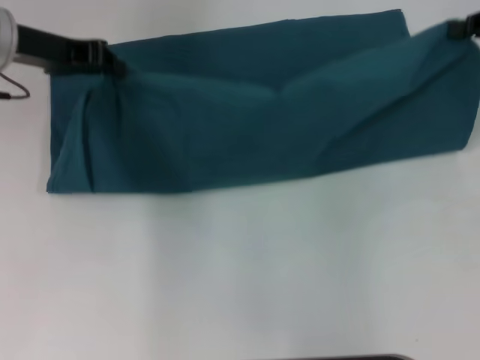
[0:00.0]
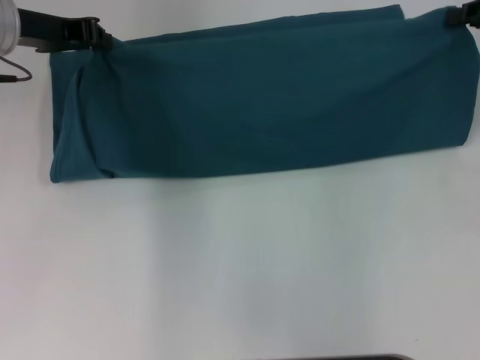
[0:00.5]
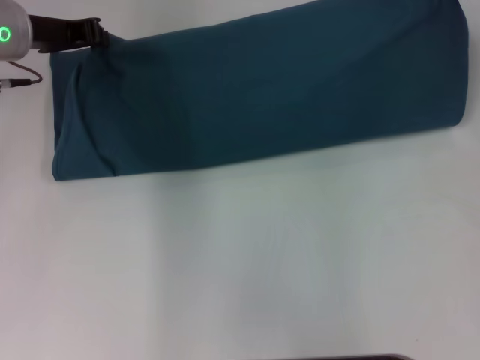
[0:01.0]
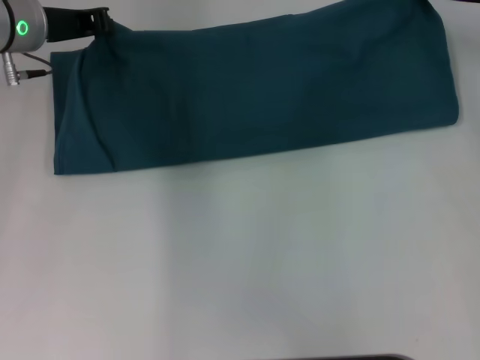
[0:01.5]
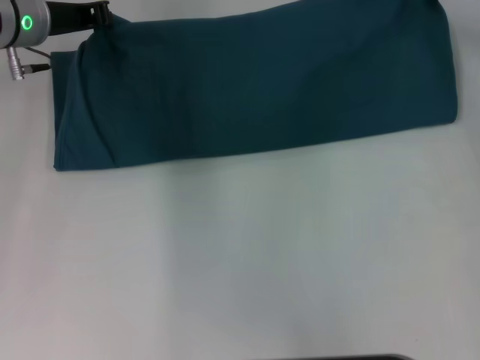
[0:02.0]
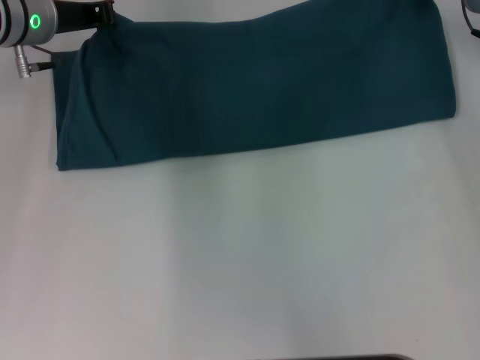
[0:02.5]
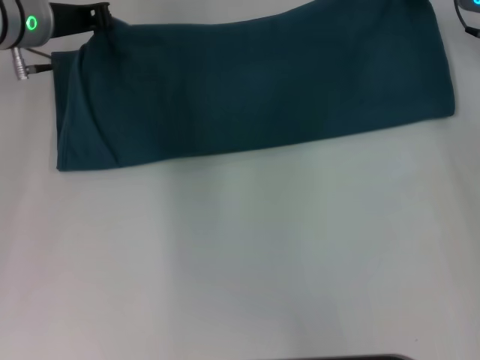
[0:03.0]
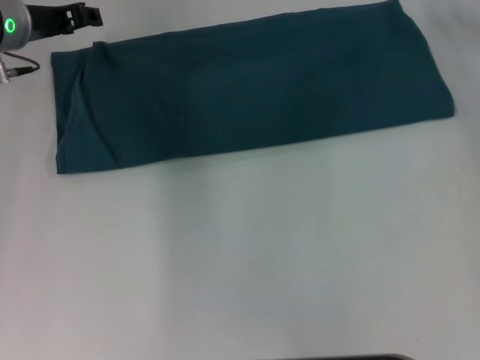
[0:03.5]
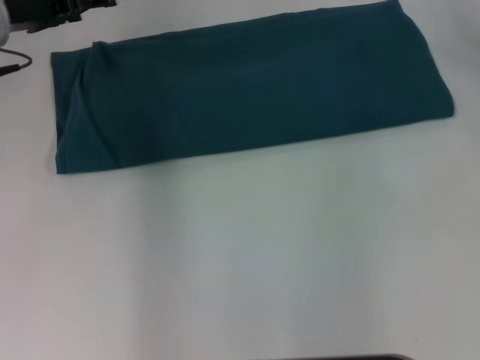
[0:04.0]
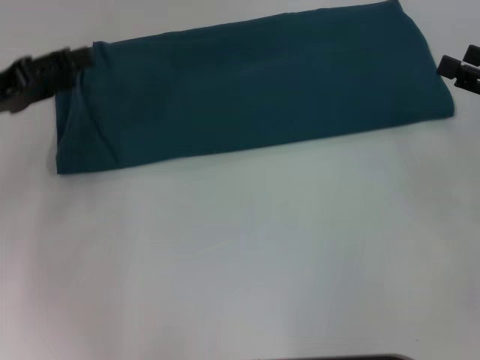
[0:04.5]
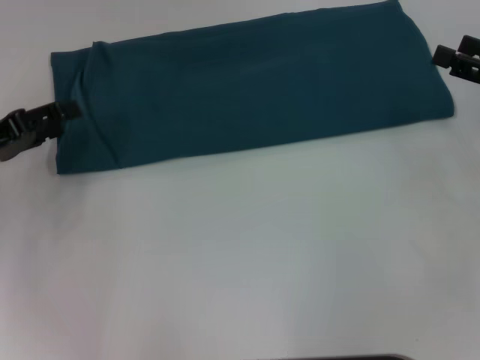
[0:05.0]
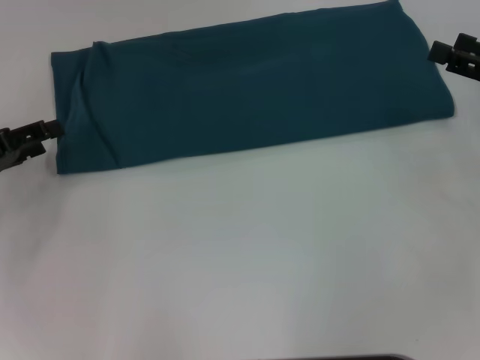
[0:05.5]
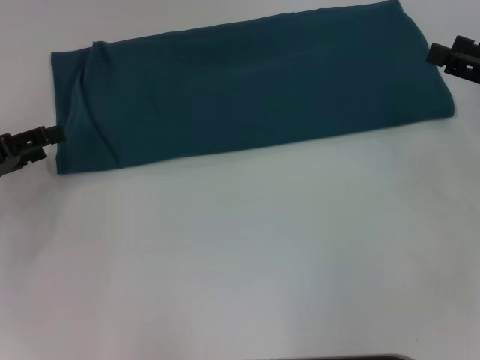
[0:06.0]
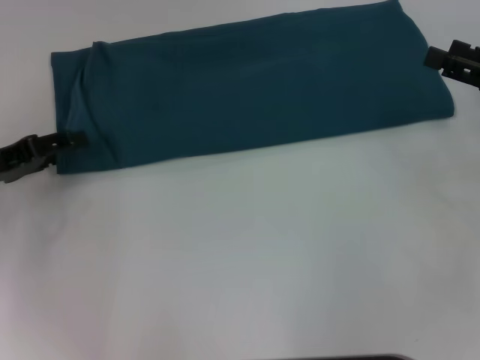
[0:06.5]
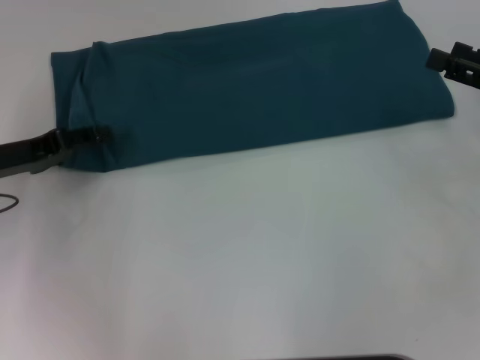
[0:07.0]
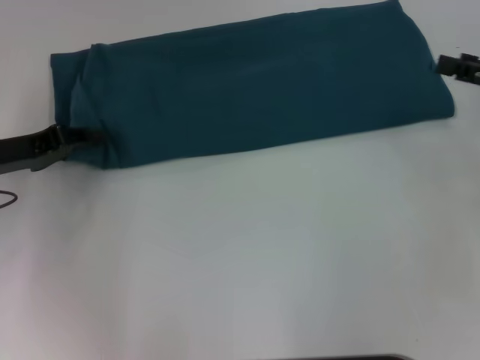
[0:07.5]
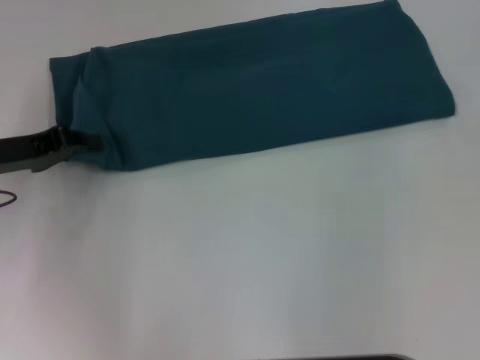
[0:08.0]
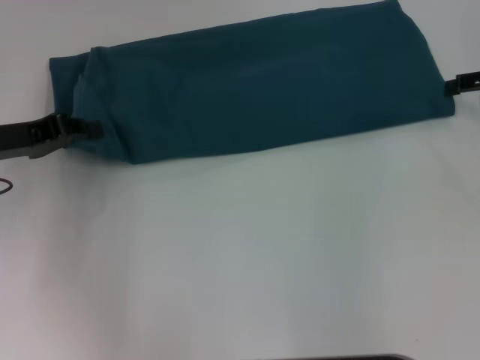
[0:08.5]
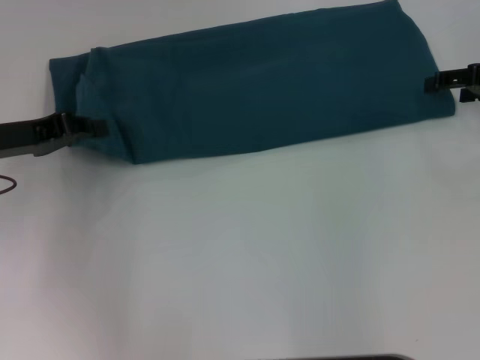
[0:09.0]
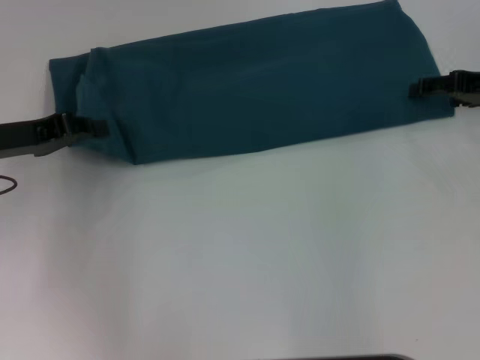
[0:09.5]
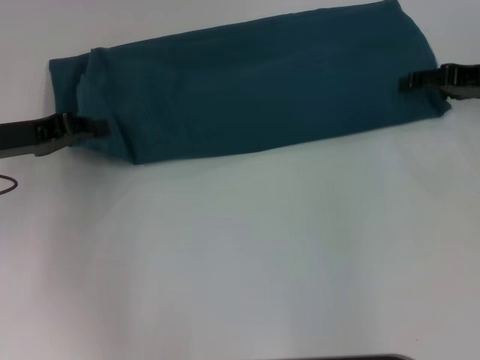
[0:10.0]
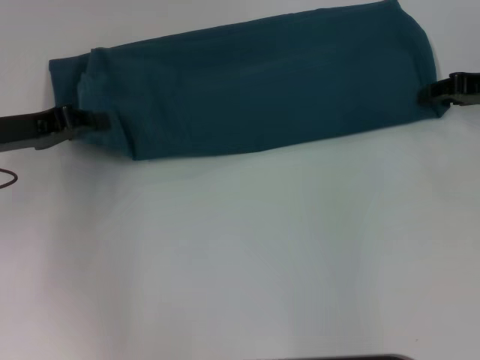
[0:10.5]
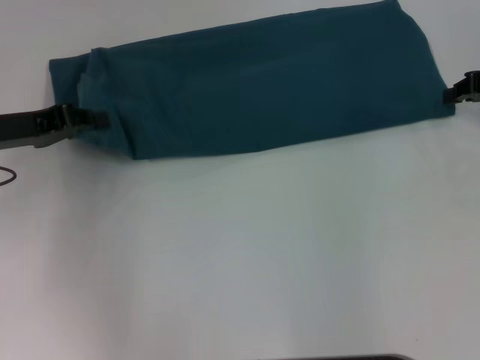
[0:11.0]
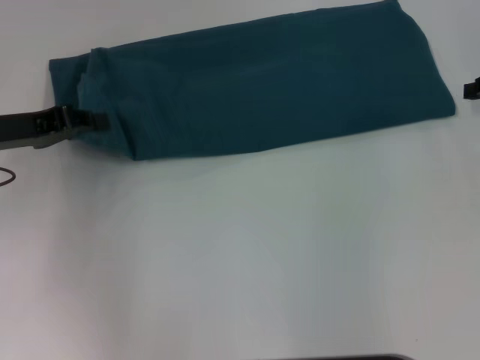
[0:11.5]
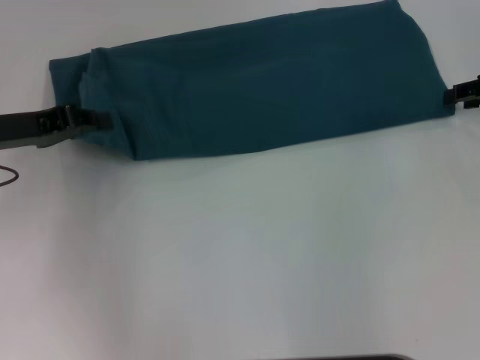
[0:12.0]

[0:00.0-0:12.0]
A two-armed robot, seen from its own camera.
Step, 0:00.0 to 0:03.0: Fold the clothes to the left.
Step, 0:00.0 to 0:03.0: Fold the clothes to the right.
0:00.0 to 0:02.0: The left gripper moves approximately 5 cm; the right gripper moves forward and to the left, some 10 cm.
0:02.0 to 0:04.0: The right gripper ends up roughly 5 cm from where it was, and opens up, while the left gripper opens.
0:04.0 to 0:06.0: The right gripper travels backward and downward by approximately 10 cm. Meanwhile the left gripper moves backward, to the left and downward, some 20 cm.
0:06.0 to 0:08.0: The right gripper travels upward, forward and to the right by about 10 cm; the left gripper moves approximately 5 cm, and closes.
0:08.0 to 0:10.0: The right gripper travels to the left and downward by roughly 10 cm.
0:10.0 to 0:12.0: The right gripper closes.

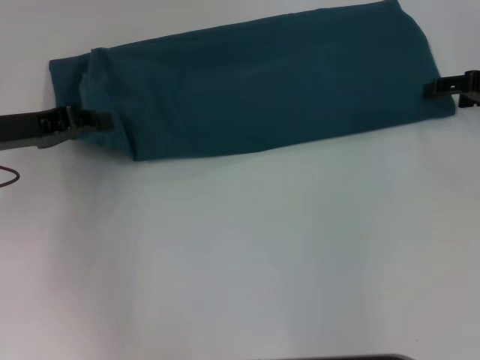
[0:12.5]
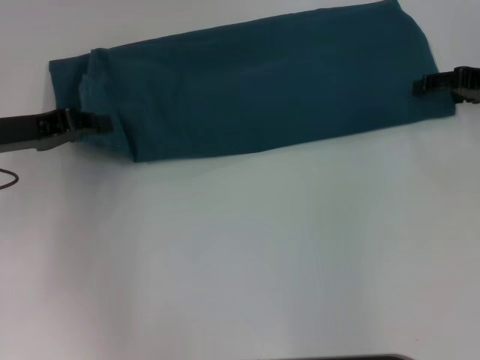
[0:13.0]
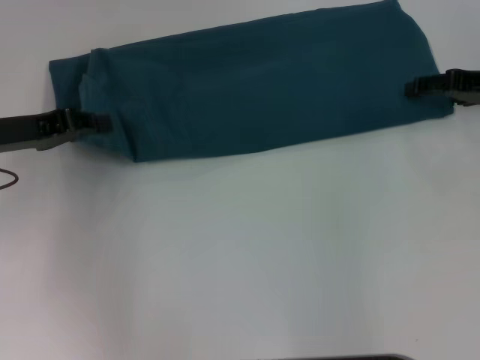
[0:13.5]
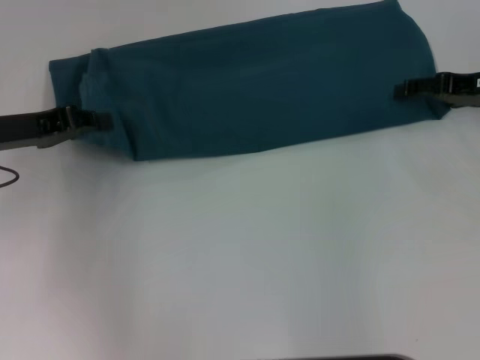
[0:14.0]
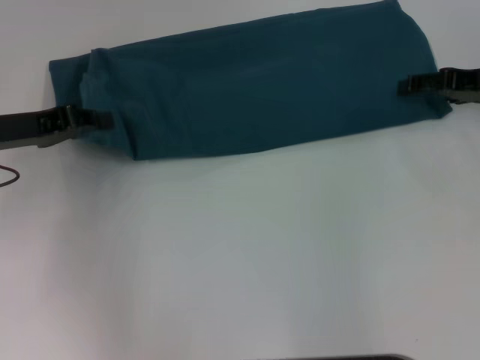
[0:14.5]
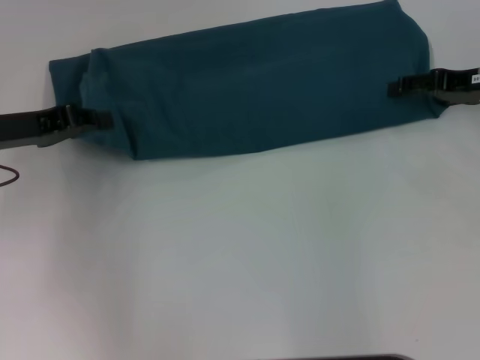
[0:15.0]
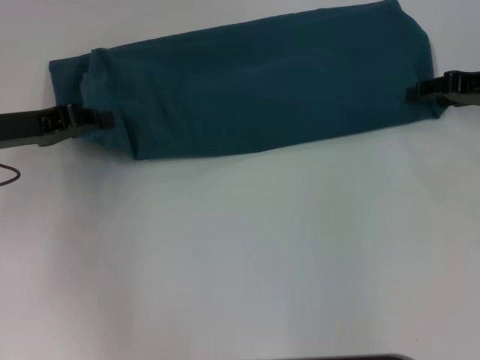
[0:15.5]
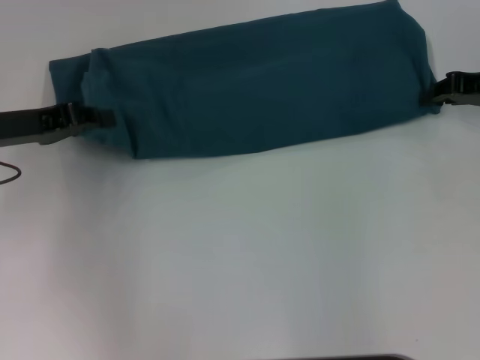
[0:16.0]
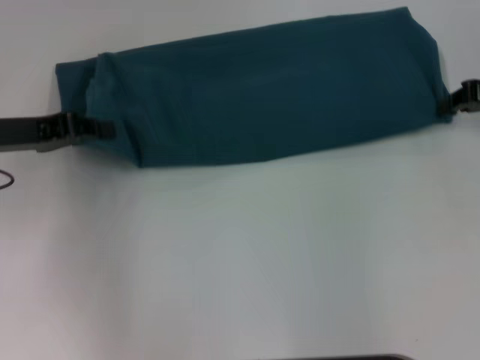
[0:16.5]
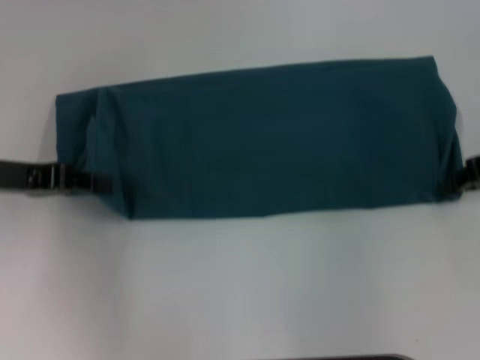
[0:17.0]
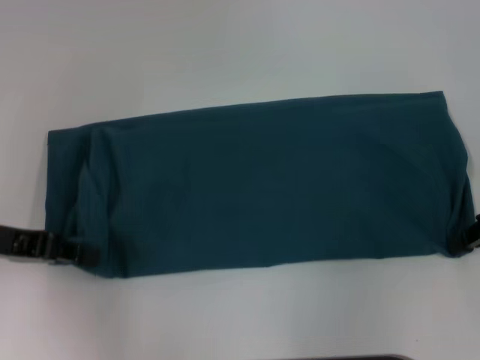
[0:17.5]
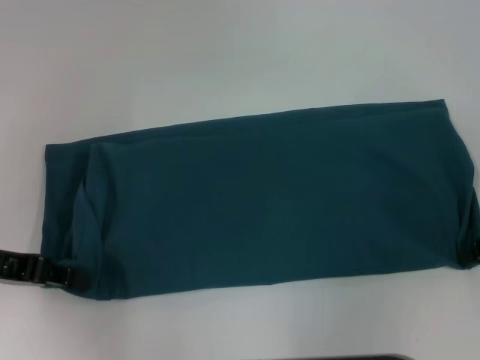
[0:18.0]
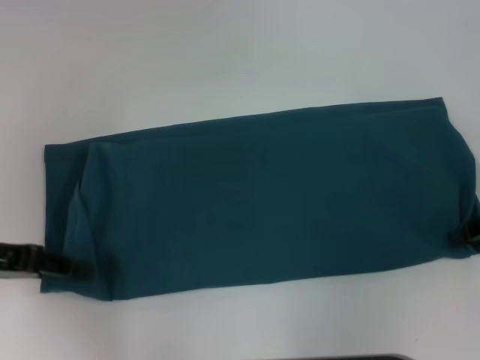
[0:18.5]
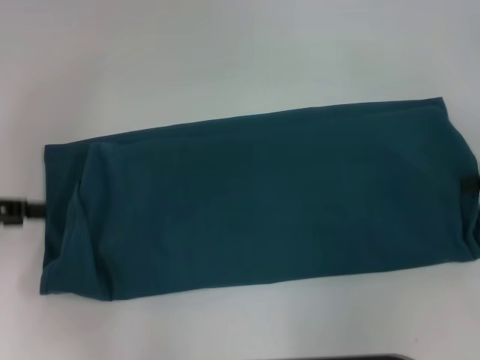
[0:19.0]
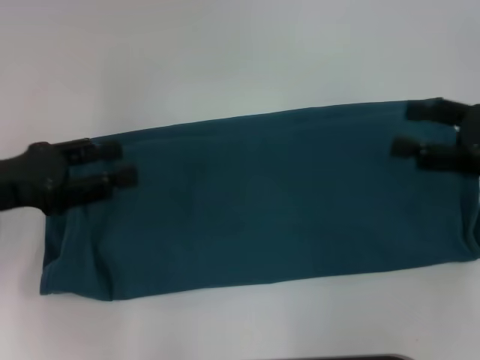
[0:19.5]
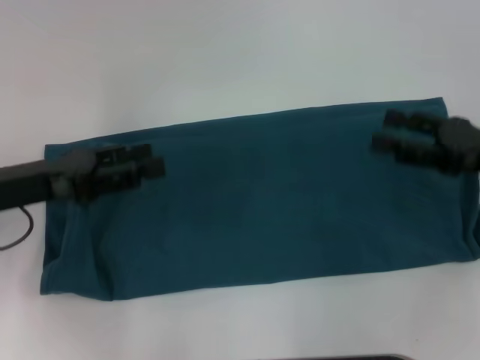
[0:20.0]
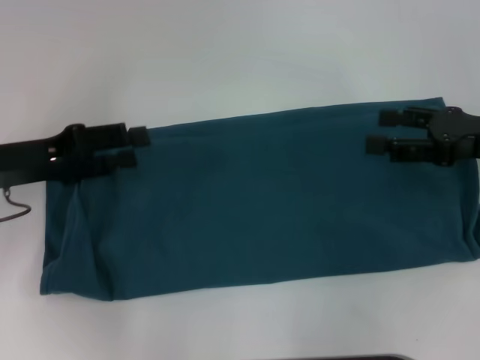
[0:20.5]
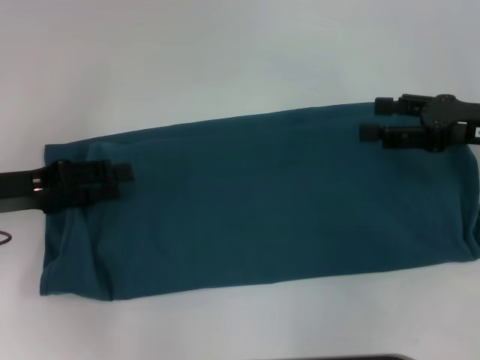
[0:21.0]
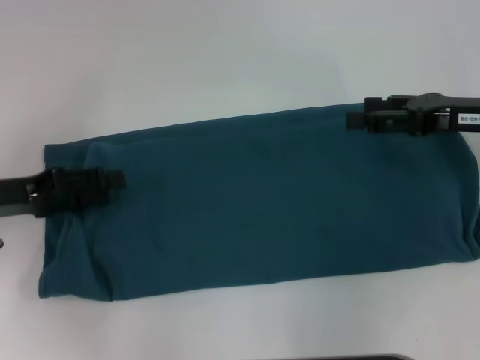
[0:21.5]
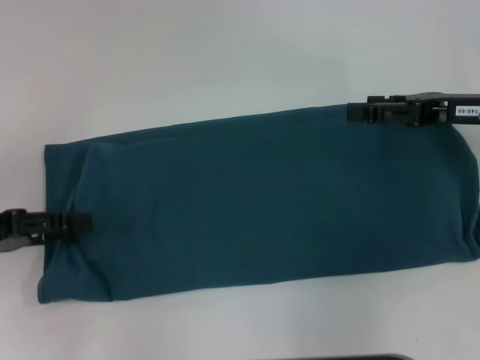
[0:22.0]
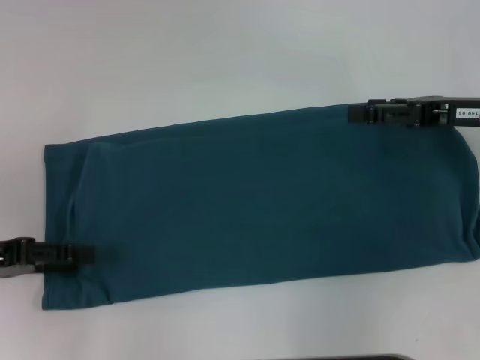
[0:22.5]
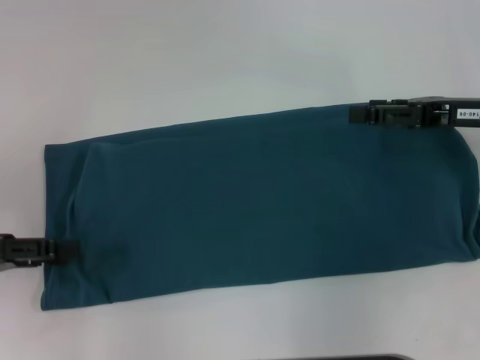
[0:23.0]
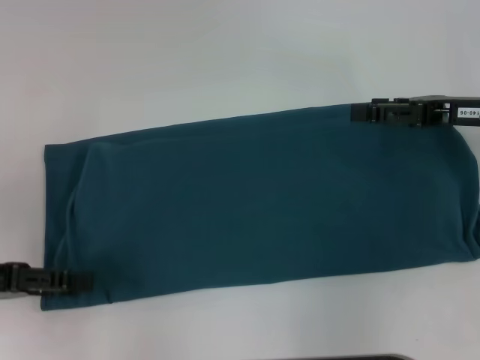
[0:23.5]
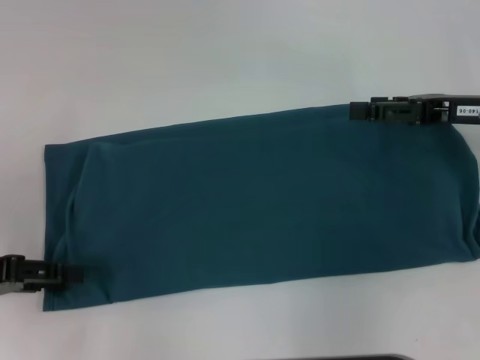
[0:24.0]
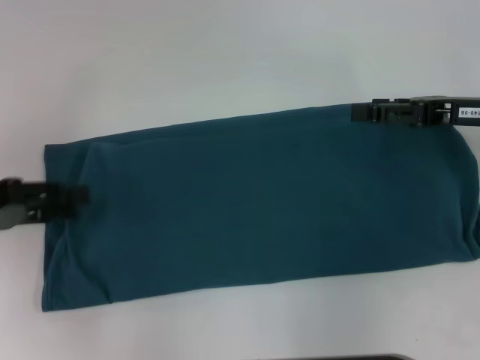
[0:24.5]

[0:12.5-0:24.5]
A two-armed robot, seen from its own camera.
Step, 0:12.5 to 0:18.5: Pull the clothes with your left hand.
Step, 0:12.5 to 0:18.5: Pull the clothes with your right hand.
0:14.5 to 0:16.5: The right gripper closes up.
0:16.5 to 0:18.5: Both grippers move backward, approximately 10 cm.
0:18.5 to 0:20.5: The right gripper moves about 5 cm, and opens its fingers, while the left gripper ends up some 5 cm from where it was, and opens up.
0:20.5 to 0:22.5: The left gripper is displaced to the left and backward by approximately 10 cm.
0:22.5 to 0:24.5: The grippers stay close to where they were, moving slightly.

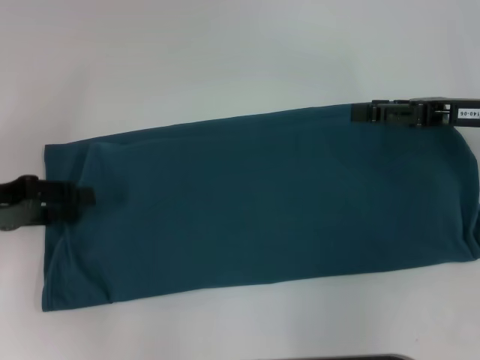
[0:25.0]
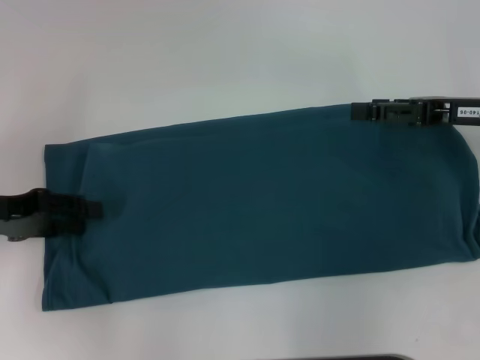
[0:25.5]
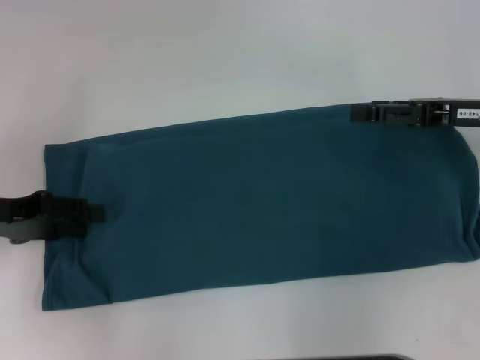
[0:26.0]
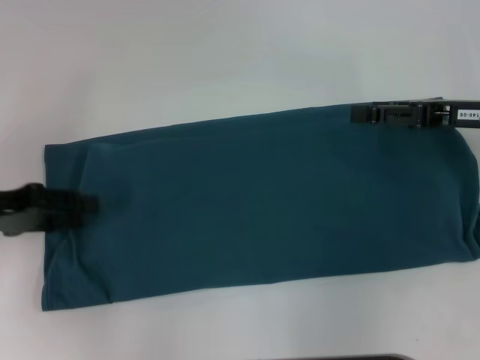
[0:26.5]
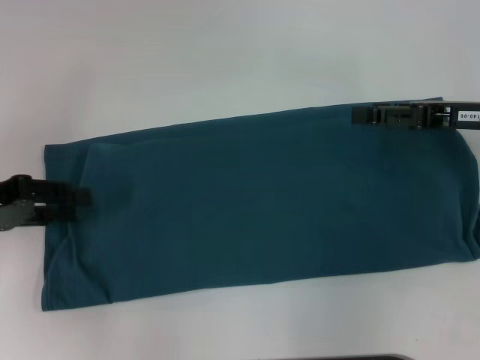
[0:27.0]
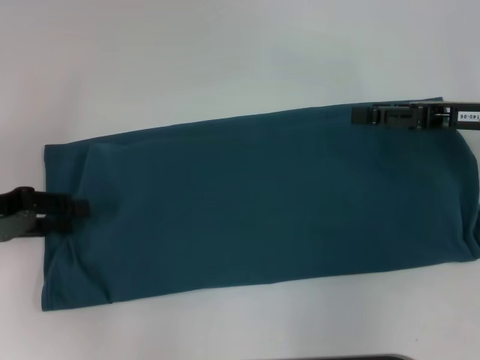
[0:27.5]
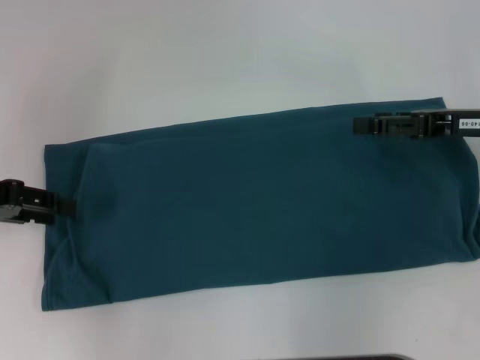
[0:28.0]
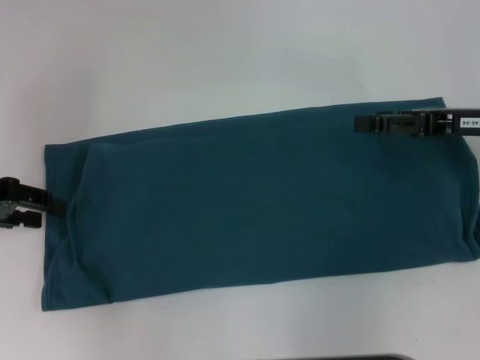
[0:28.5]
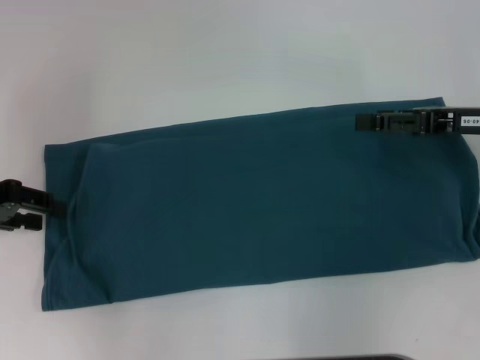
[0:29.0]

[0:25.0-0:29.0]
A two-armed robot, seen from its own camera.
0:27.0 to 0:29.0: The grippers make only small movements.
